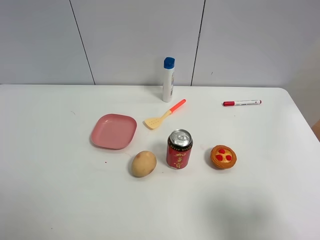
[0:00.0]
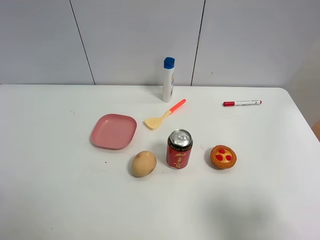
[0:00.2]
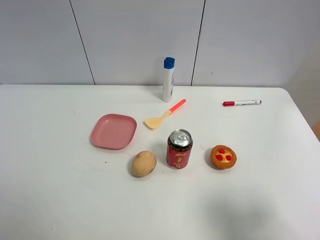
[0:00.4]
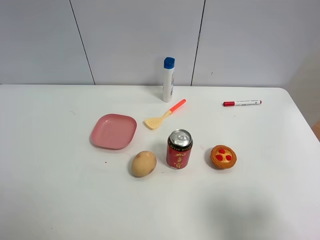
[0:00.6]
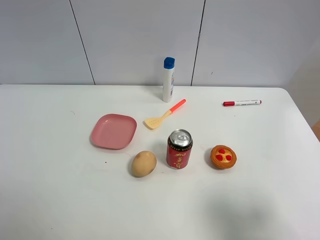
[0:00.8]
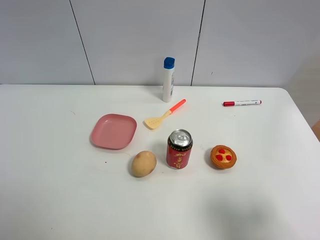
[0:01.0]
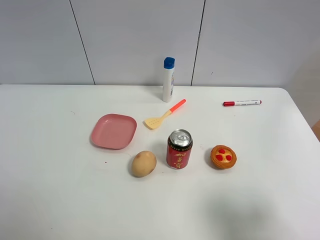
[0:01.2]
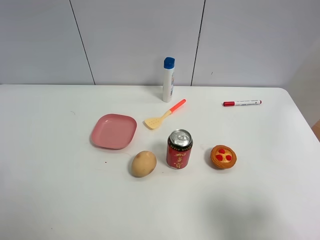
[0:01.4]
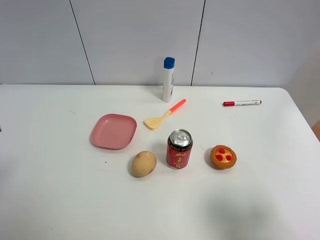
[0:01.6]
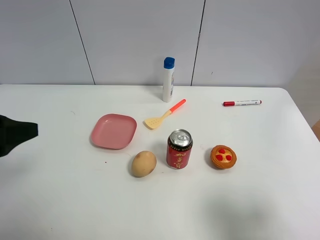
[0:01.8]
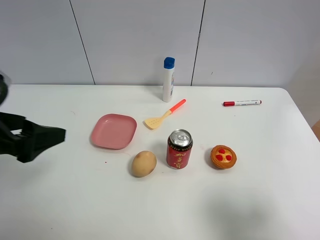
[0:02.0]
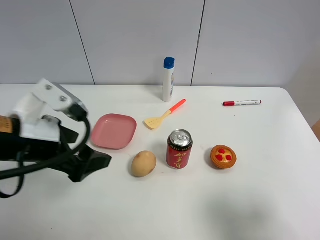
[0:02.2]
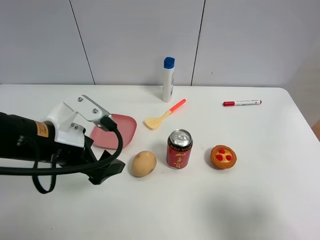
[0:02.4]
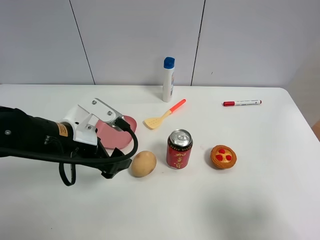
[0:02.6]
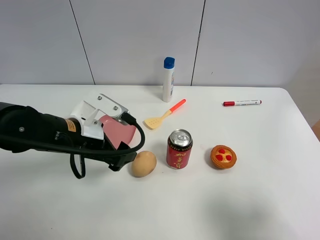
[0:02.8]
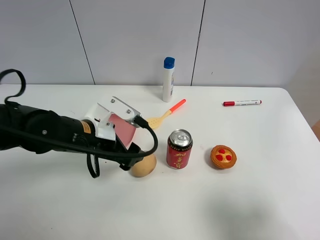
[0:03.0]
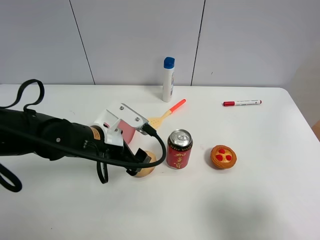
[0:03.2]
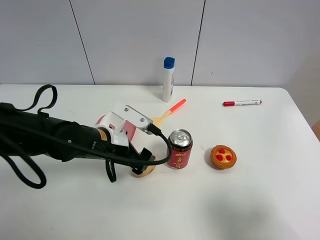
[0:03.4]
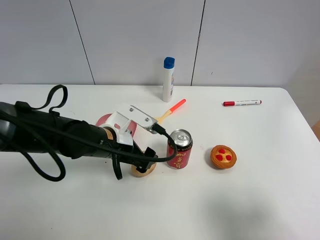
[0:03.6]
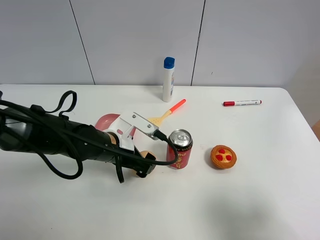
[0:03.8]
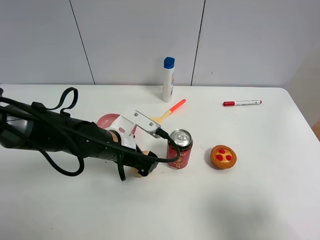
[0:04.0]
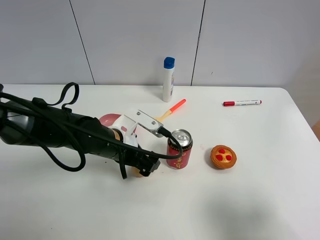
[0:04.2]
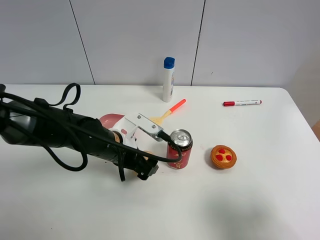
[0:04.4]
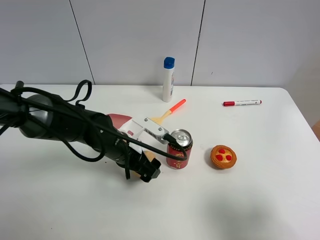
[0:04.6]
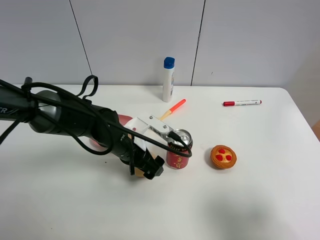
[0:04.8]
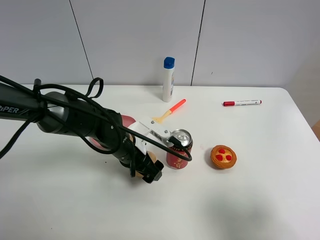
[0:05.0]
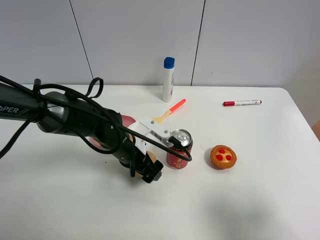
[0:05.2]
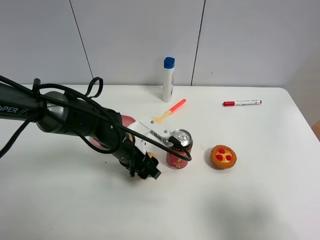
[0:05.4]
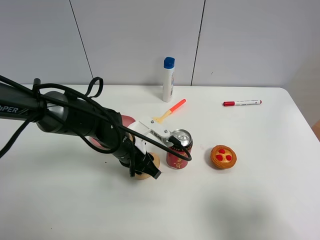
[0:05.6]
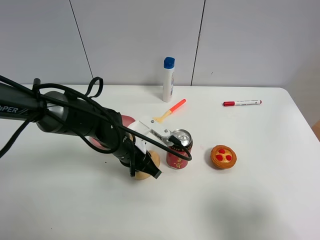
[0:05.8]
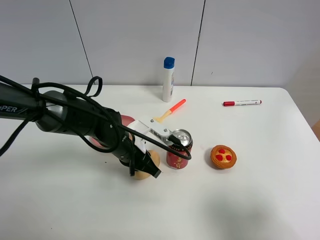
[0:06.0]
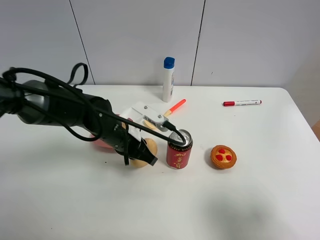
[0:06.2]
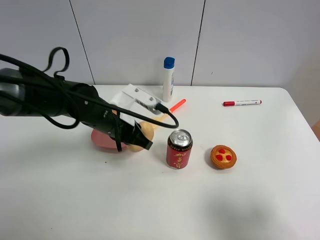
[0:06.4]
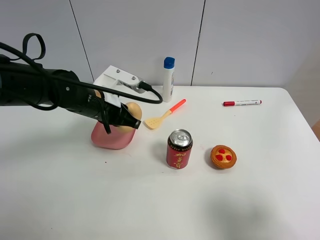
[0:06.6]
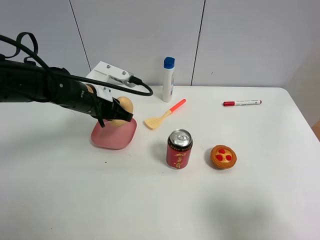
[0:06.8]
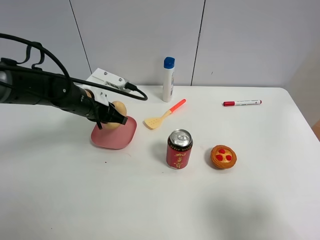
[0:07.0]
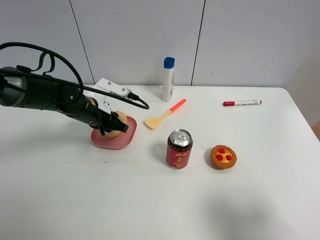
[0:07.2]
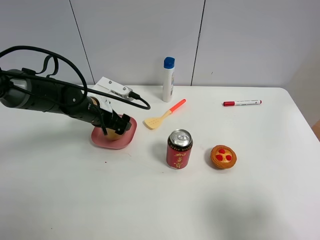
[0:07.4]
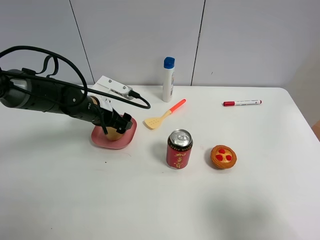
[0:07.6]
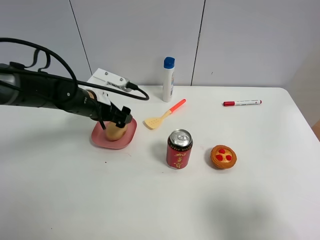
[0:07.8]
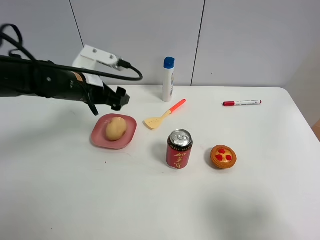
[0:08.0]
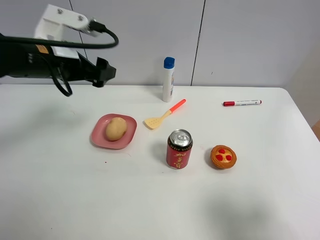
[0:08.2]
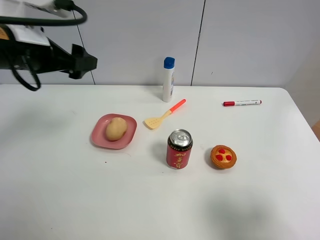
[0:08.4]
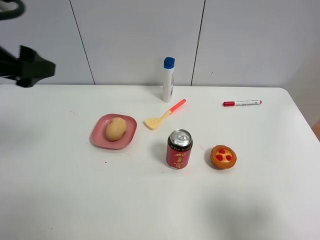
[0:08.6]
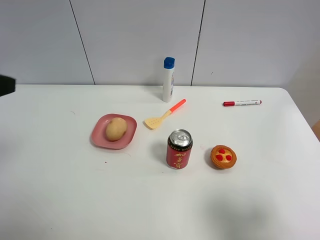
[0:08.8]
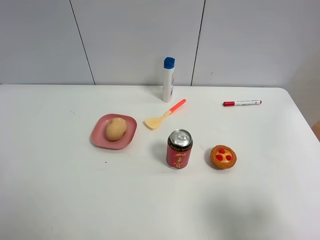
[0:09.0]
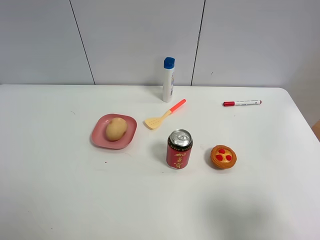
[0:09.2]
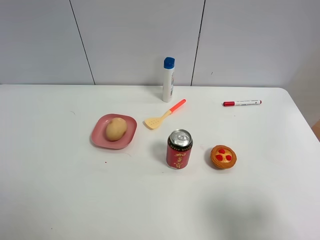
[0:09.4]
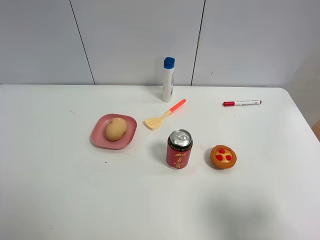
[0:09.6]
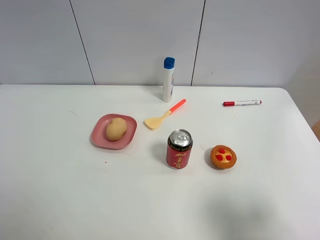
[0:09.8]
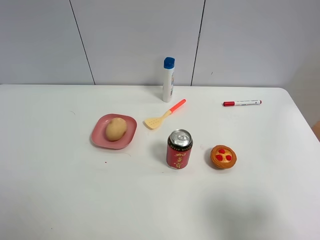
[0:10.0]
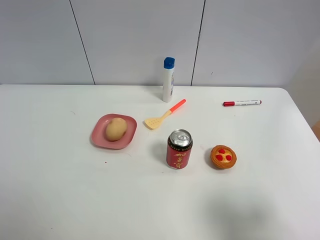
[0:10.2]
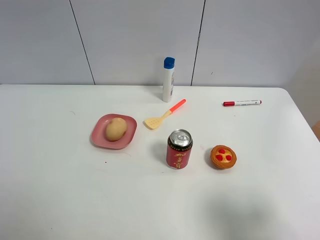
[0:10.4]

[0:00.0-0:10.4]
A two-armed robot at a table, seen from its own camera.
Task of the whole recording: the gripper move the object.
Step, 0:00.0 to 0:05.6: Grasp the egg yolk pastry with the left gripper.
Step, 0:05.8 to 0:07.2: Place the egg yolk pastry into the pink plate with the left gripper.
0:01.4 to 0:03.0: The left gripper heads to the right, forward and downward, covering some 30 cm.
0:03.0 to 0:04.4: The left gripper changes place by roughly 5 cm.
0:04.4 to 0:06.0: The left gripper closes up.
0:06.0 to 0:07.4: The left gripper shifts some 10 cm to the left and forward, and opens up.
0:07.4 to 0:09.0: The left gripper travels backward, upward and to the left by approximately 35 cm.

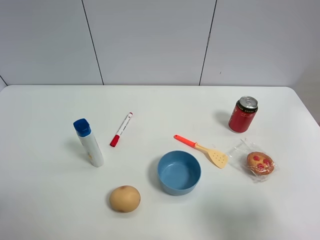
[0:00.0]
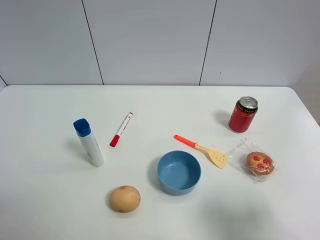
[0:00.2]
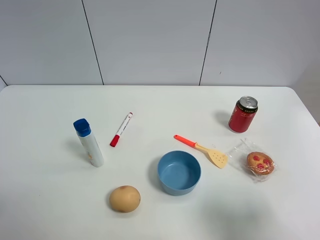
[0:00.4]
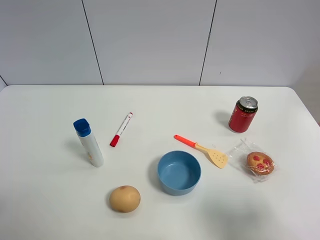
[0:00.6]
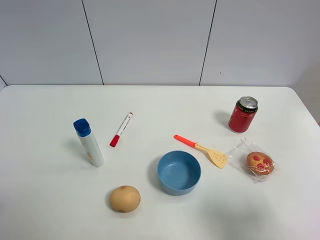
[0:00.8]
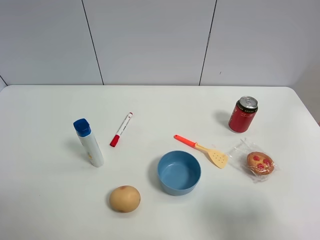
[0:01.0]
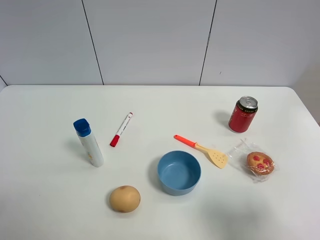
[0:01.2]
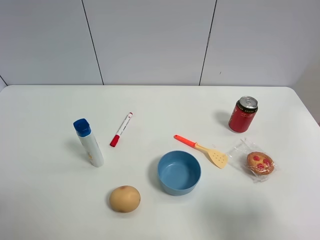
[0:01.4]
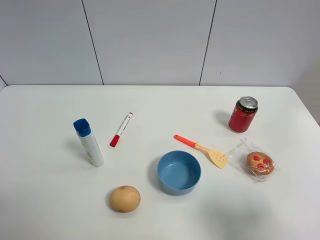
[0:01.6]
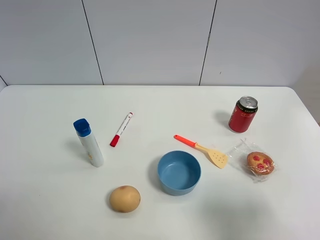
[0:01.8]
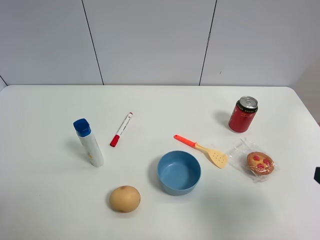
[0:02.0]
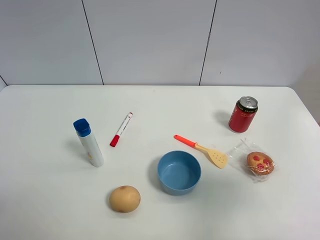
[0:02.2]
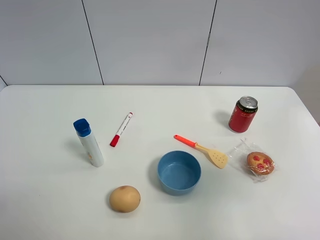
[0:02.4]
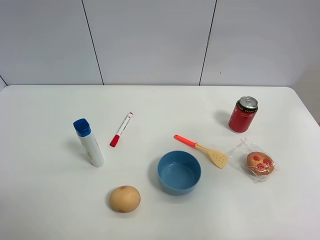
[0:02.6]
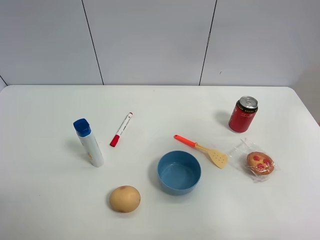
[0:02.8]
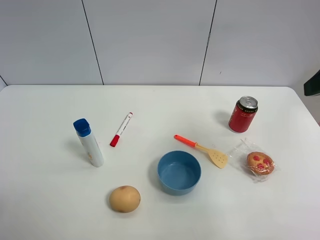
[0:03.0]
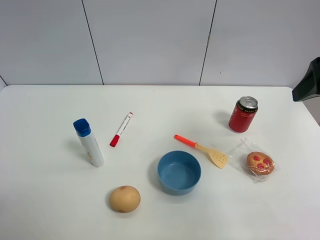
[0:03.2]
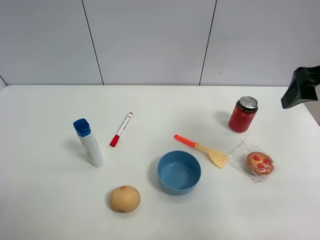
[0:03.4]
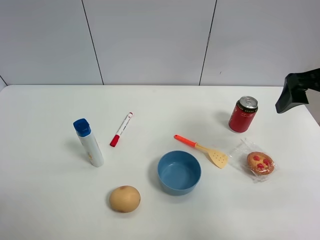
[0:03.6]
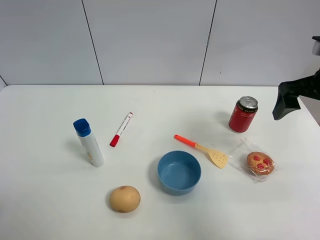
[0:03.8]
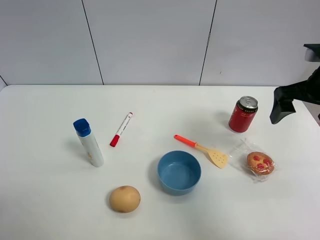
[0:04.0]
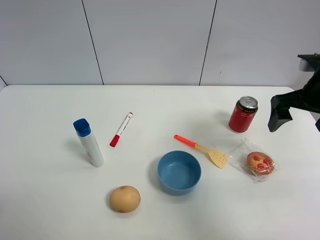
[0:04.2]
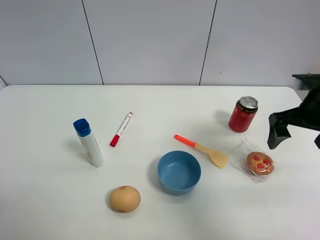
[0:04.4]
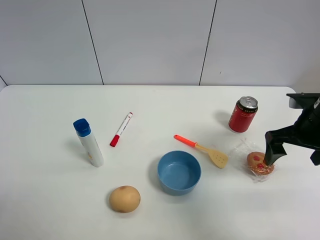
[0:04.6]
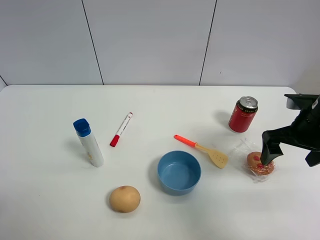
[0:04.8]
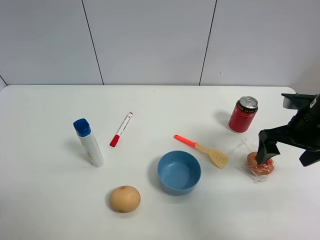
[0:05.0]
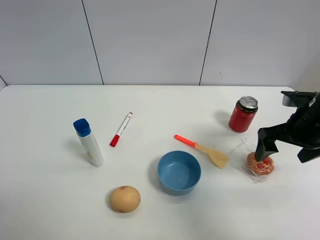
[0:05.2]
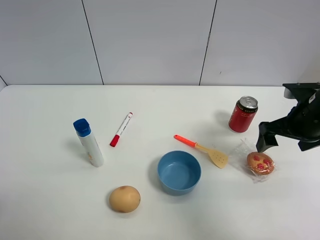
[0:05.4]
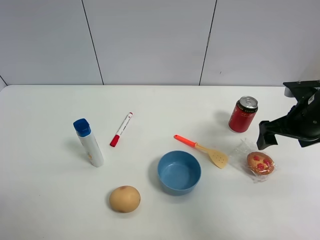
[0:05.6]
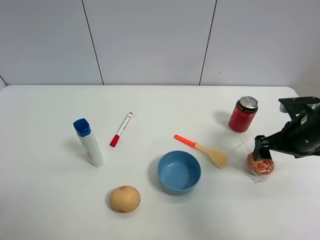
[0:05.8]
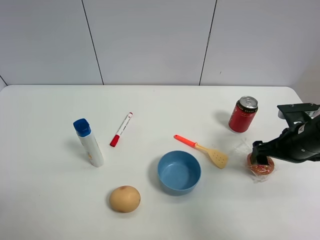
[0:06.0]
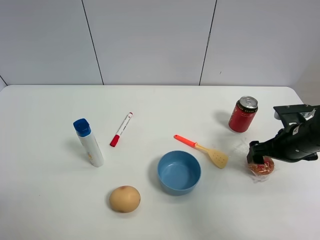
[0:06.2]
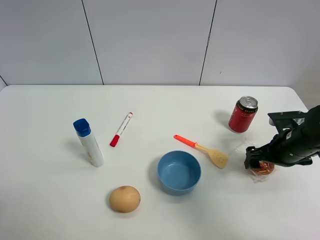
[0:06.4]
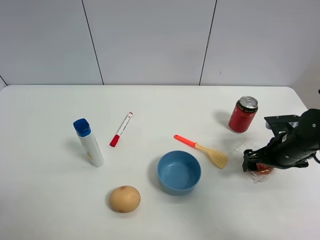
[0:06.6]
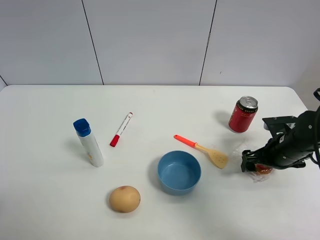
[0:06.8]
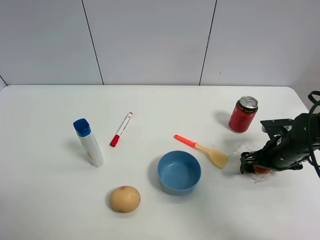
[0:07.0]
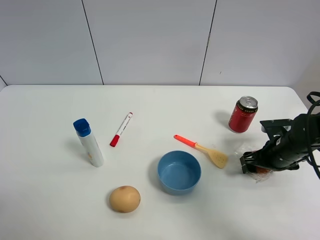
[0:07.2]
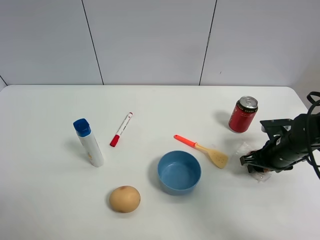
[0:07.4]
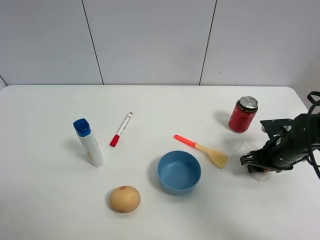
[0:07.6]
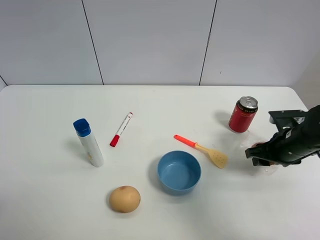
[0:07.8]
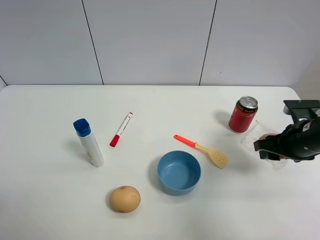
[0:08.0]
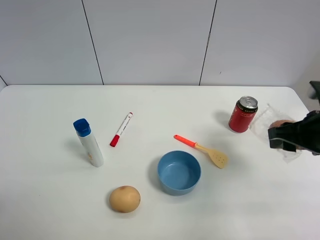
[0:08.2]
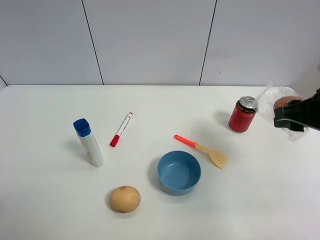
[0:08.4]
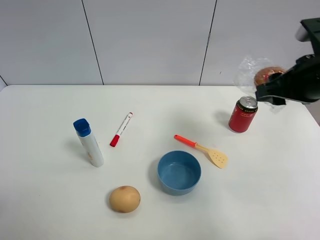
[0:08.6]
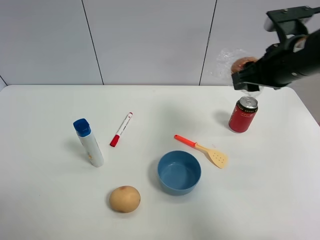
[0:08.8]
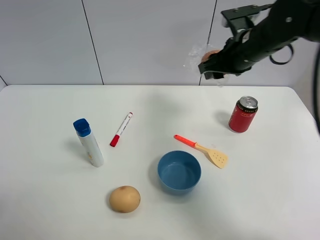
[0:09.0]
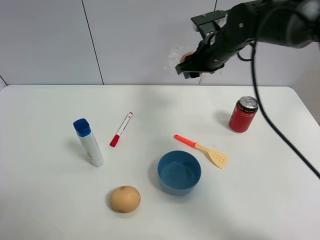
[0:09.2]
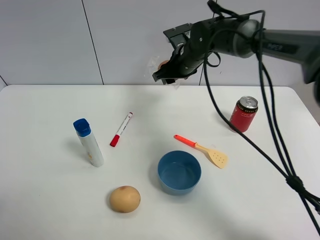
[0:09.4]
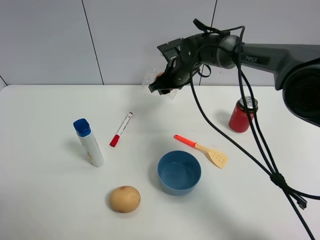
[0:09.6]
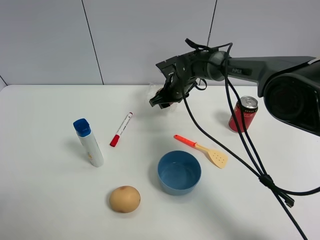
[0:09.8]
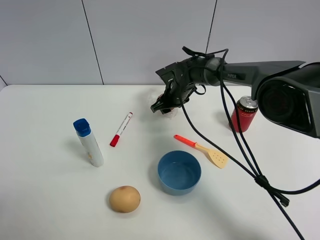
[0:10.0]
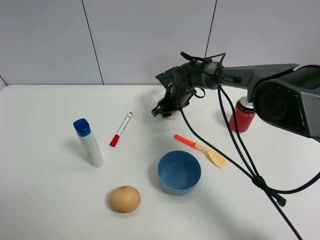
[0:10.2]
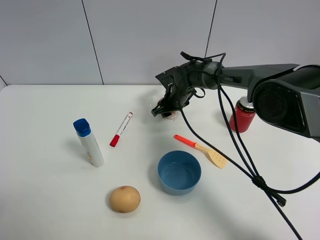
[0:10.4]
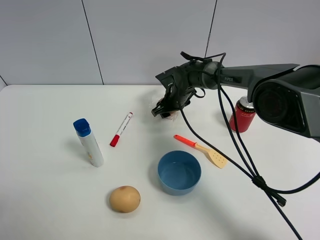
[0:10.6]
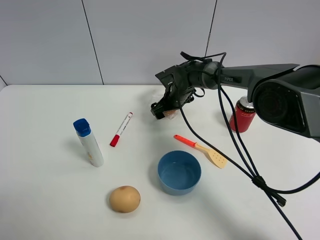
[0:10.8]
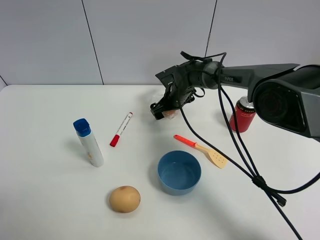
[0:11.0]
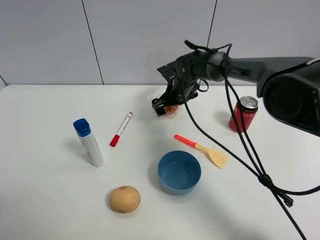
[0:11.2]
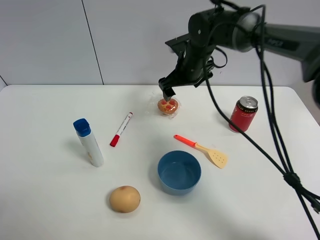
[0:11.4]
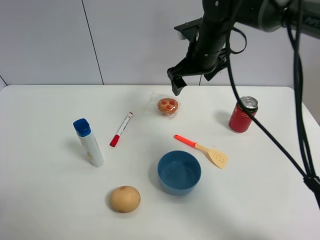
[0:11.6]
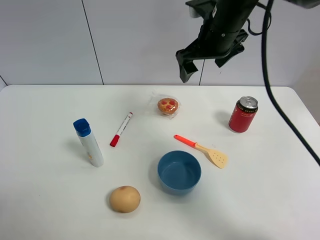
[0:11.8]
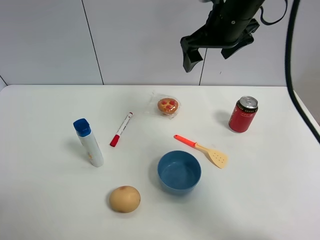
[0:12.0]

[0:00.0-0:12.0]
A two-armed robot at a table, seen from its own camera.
Task of the whole recording: the gripper move the object.
Step, 0:00.0 to 0:07.4: Grasp the egg tart with the right gripper.
Step, 0:07.6 to 0:11.4: Place the egg tart on the table with the right gripper.
0:00.0 to 0:01.6: Both grippers stay put.
0:01.6 to 0:03.0: The right gripper is displaced forward and upward by approximately 20 cm.
0:03.0 to 0:04.4: The right gripper is displaced downward and forward by some 15 cm.
0:04.4 to 0:06.0: The right gripper heads downward, covering approximately 10 cm.
0:06.0 to 0:07.6: The right gripper heads downward, covering about 5 cm, and closes.
0:07.6 to 0:09.0: The right gripper moves upward, to the left and forward, approximately 25 cm.
0:09.0 to 0:10.4: The right gripper heads downward, to the left and forward, covering some 25 cm.
0:10.4 to 0:12.0: The right gripper is displaced upward and backward by about 30 cm, and opens its fingers.
